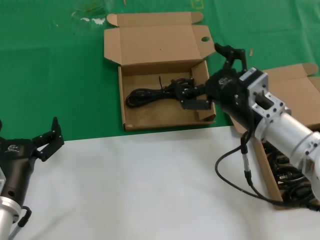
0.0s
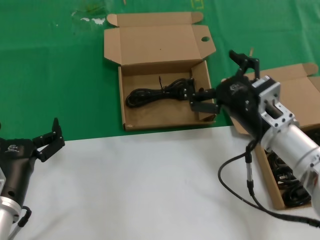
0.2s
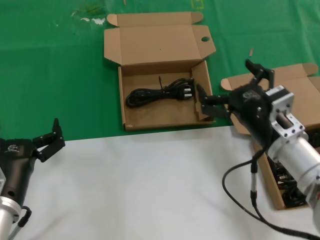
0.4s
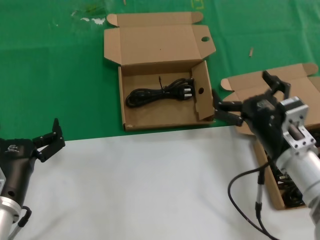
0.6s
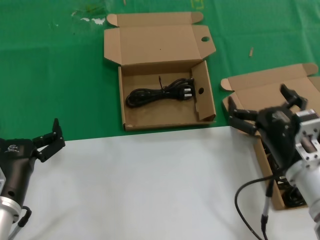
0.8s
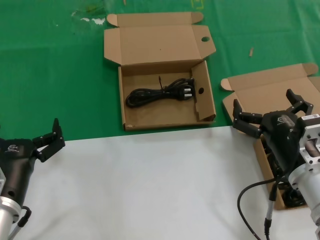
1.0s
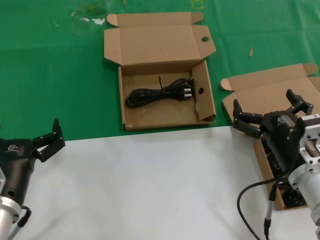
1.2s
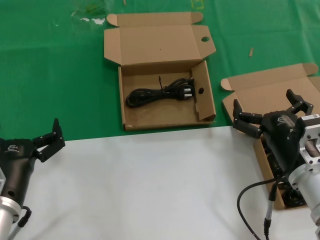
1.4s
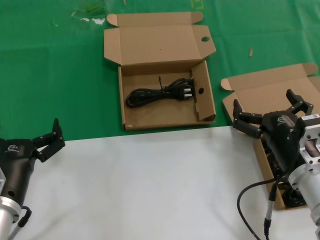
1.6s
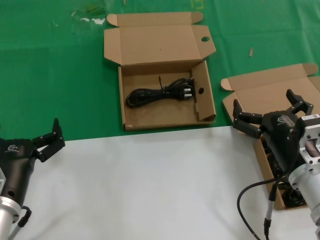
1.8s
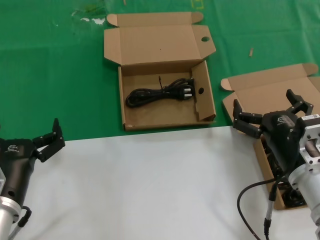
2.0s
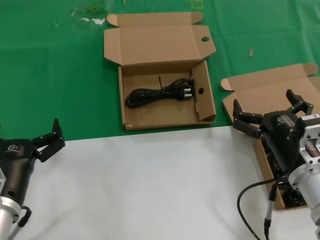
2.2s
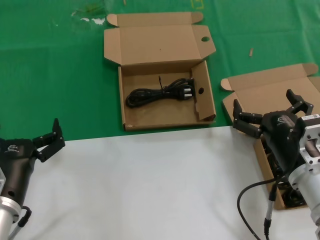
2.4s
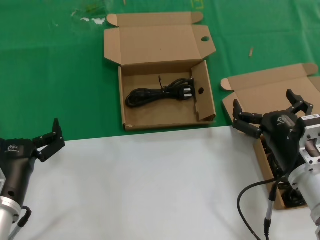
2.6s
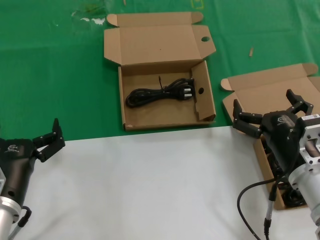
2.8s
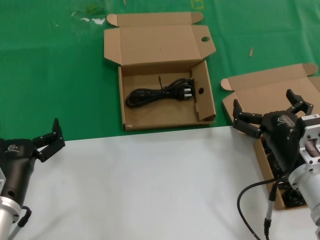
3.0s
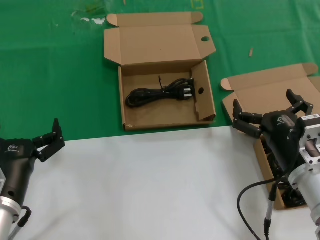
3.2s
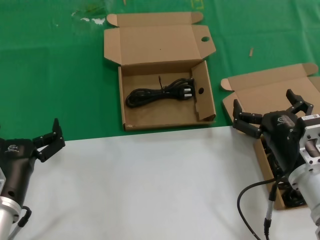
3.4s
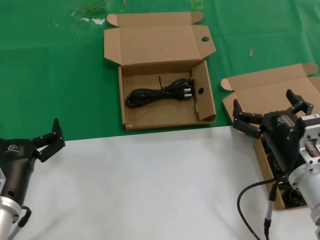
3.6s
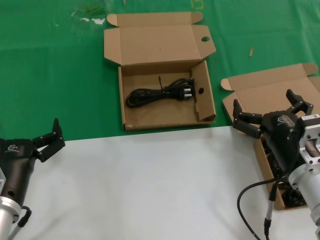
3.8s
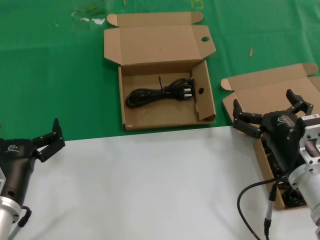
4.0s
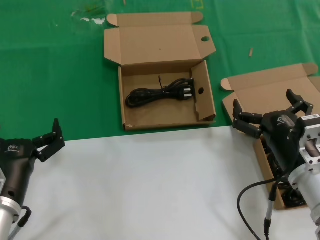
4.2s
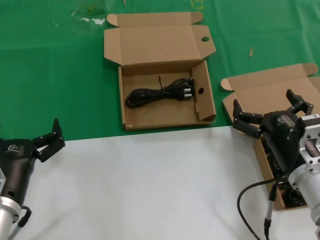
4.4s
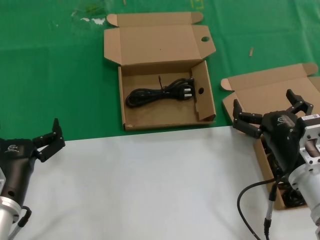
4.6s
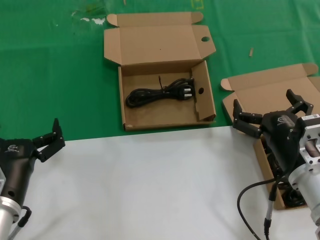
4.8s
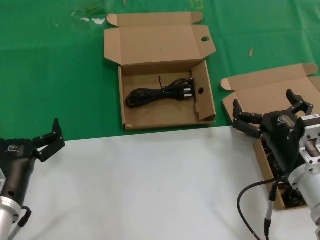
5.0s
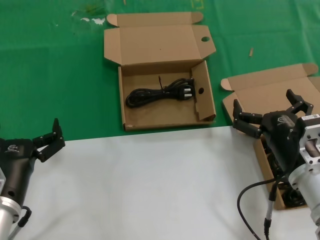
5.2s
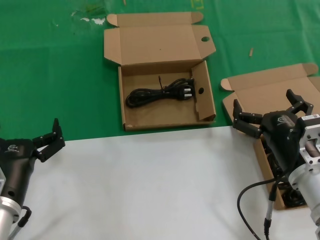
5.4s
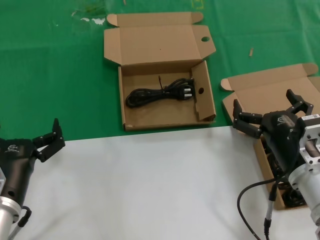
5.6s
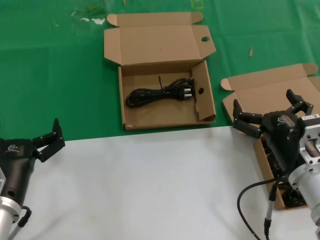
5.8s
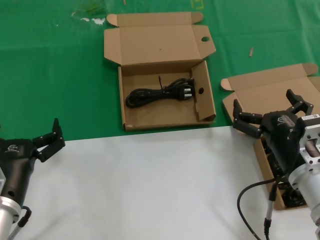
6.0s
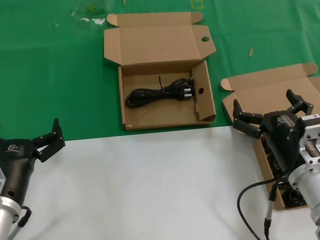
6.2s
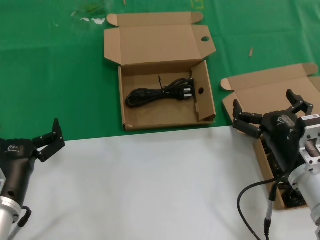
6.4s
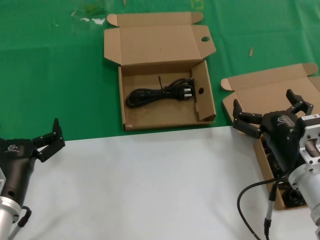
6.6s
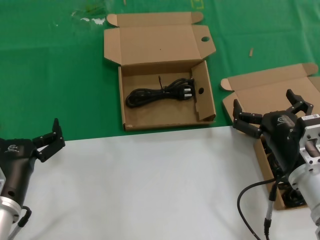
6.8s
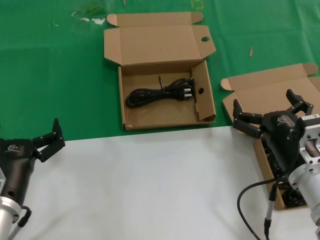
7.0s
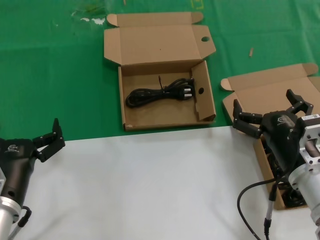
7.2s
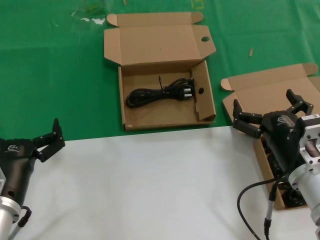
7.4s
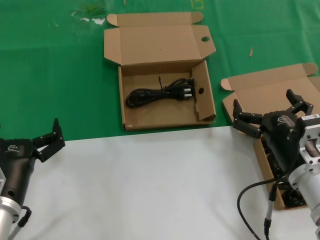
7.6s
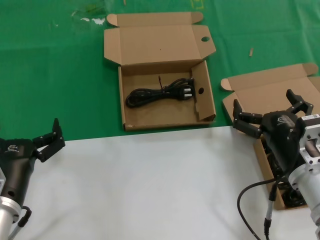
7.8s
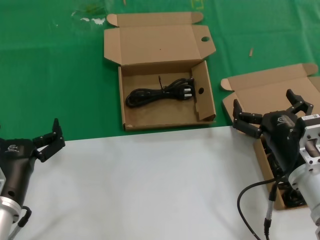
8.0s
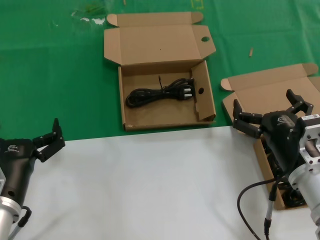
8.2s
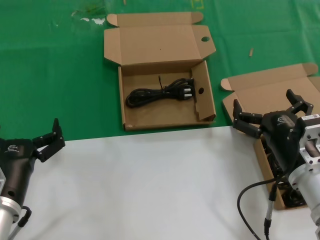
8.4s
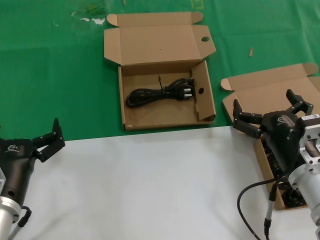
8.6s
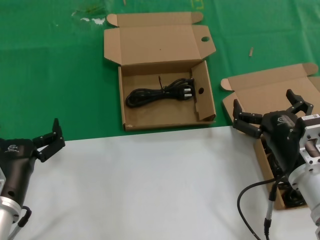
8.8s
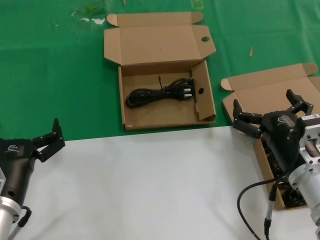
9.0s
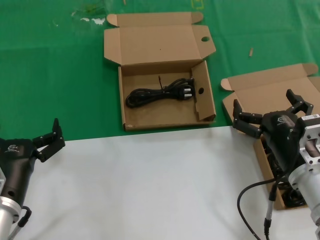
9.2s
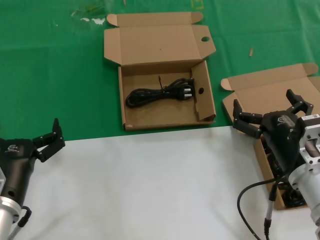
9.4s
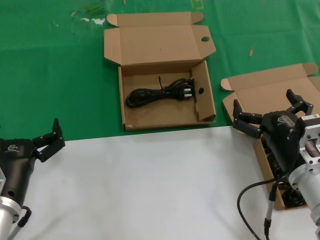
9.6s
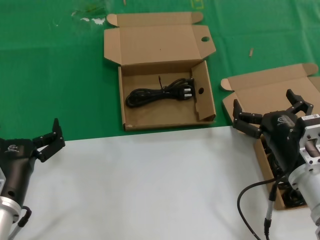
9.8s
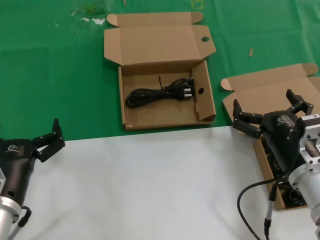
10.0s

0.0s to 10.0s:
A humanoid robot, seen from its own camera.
Task of the whole recording: take the parts from the box containing them and put them into an empty box.
0.0s to 1.4s: The right hand goes some 10 cm backward and downward.
1.4s to 10.0s: Neither hand changes place.

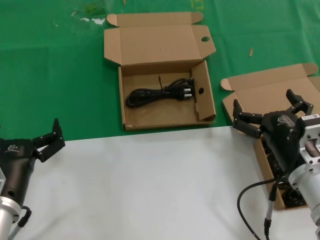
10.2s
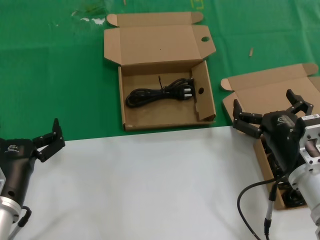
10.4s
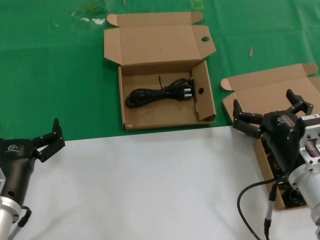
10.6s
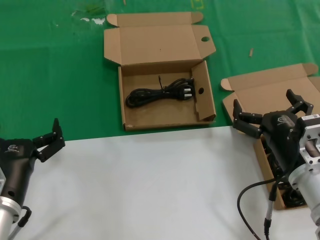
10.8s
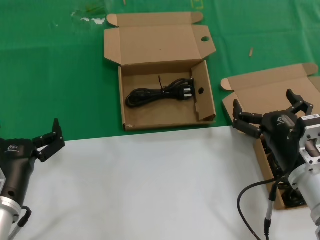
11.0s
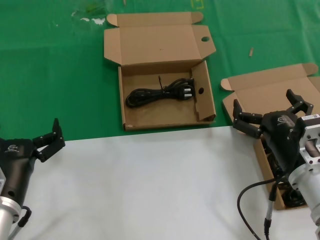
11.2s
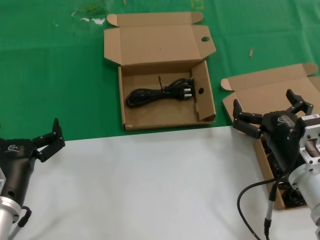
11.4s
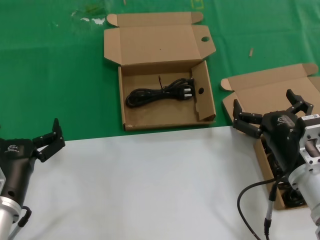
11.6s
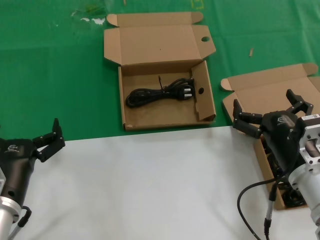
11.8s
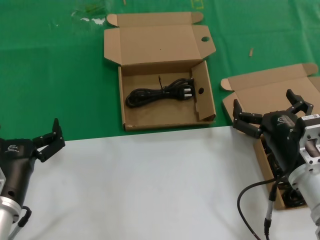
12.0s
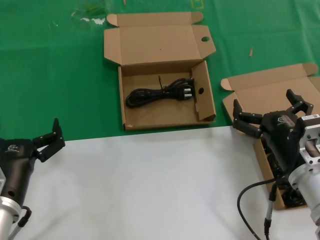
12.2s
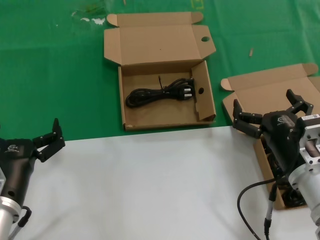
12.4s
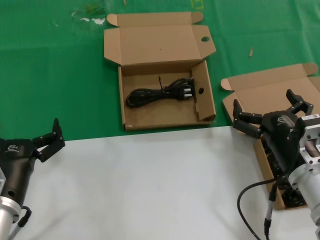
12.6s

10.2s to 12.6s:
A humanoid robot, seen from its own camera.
Task of the whole recording: take the parts from the box containing them and put them into an empty box.
10.2s to 12.6s: Both hands stay put.

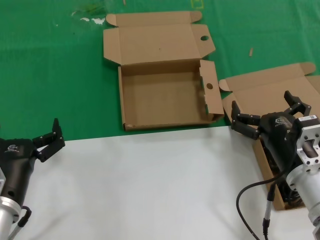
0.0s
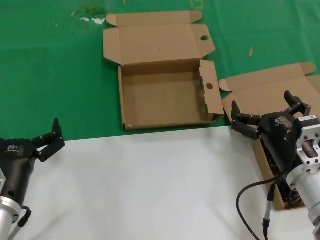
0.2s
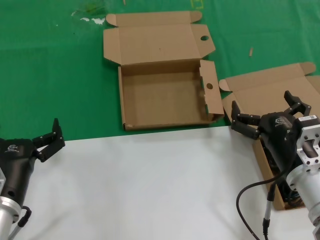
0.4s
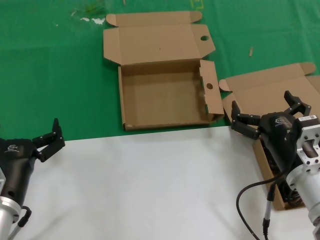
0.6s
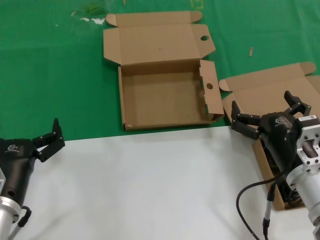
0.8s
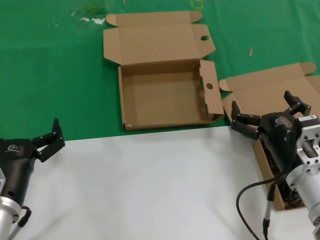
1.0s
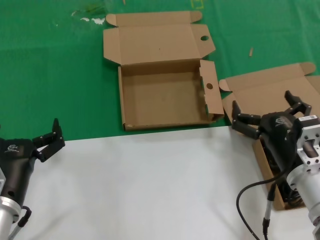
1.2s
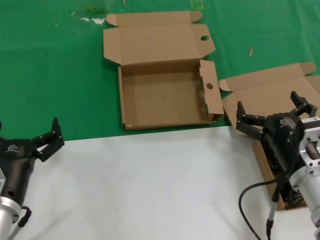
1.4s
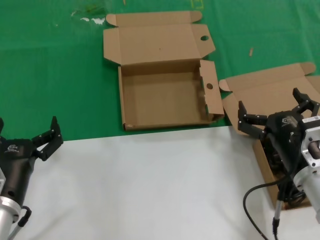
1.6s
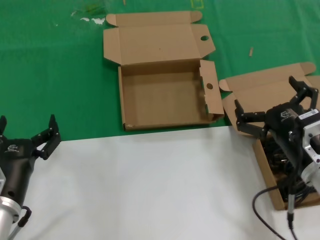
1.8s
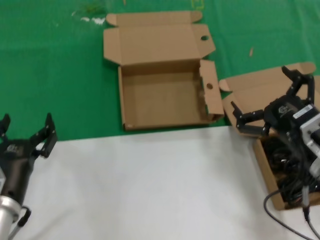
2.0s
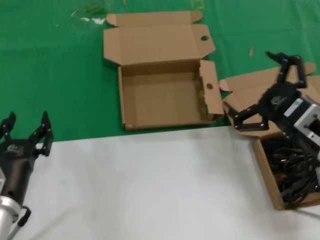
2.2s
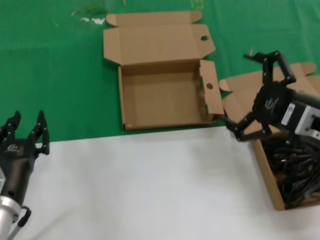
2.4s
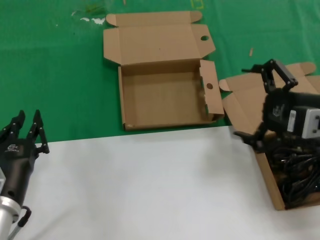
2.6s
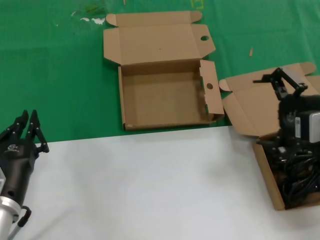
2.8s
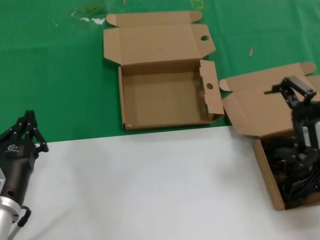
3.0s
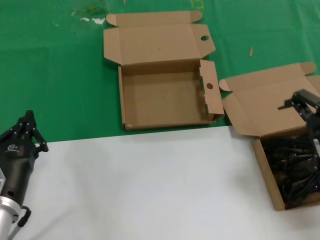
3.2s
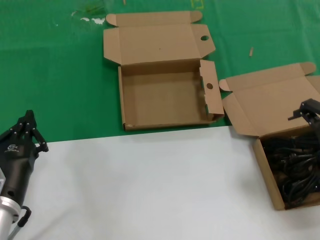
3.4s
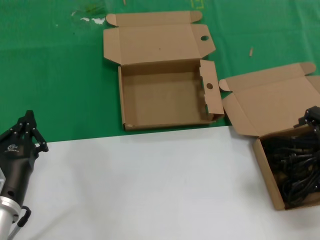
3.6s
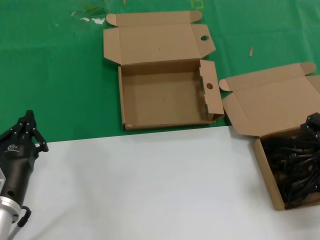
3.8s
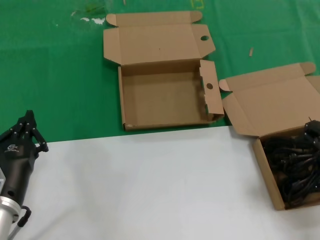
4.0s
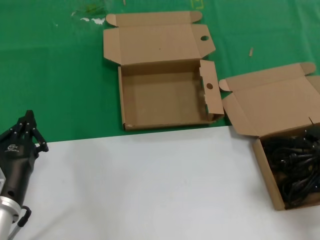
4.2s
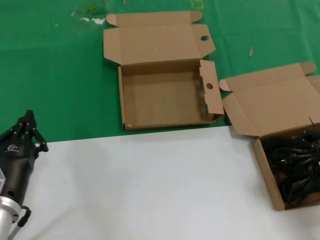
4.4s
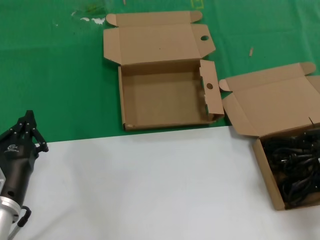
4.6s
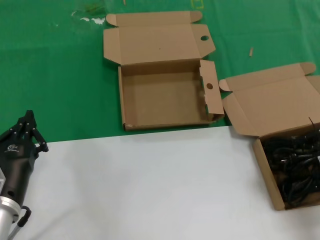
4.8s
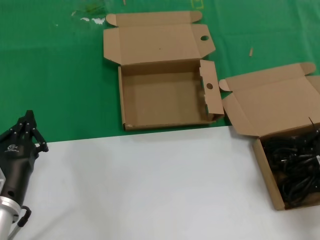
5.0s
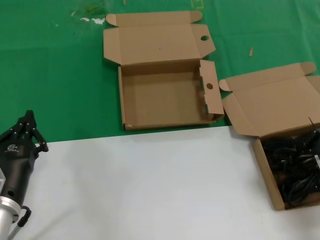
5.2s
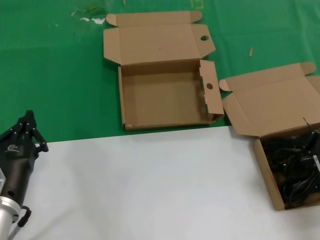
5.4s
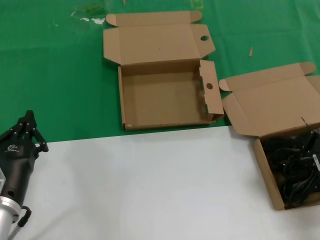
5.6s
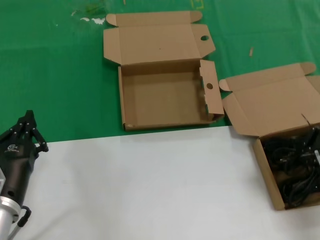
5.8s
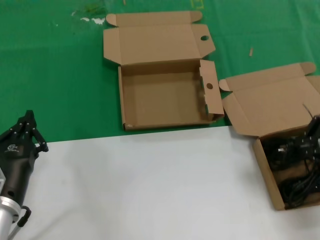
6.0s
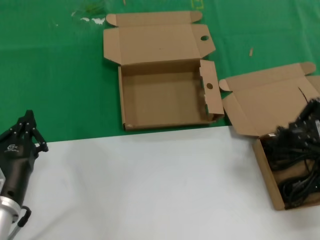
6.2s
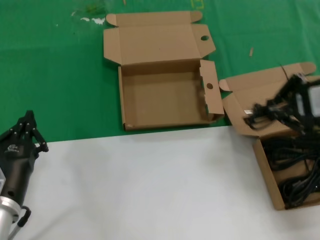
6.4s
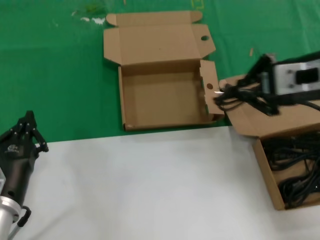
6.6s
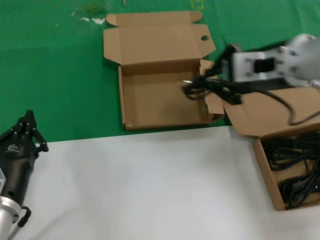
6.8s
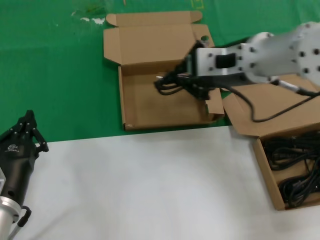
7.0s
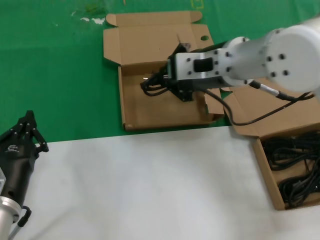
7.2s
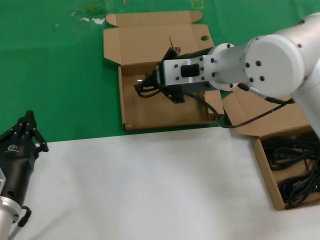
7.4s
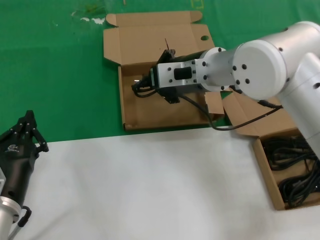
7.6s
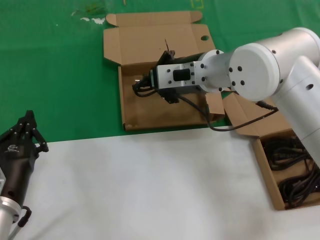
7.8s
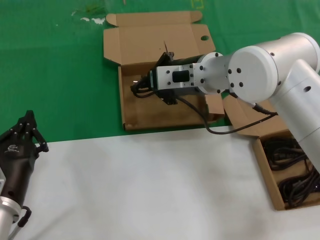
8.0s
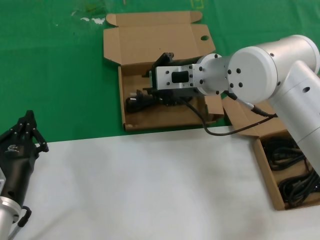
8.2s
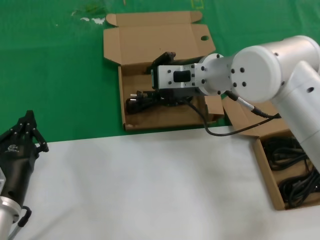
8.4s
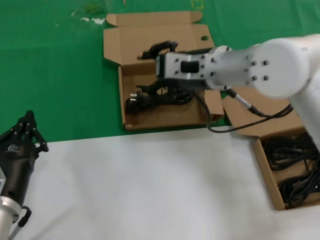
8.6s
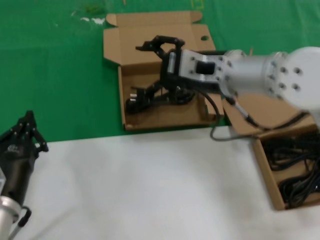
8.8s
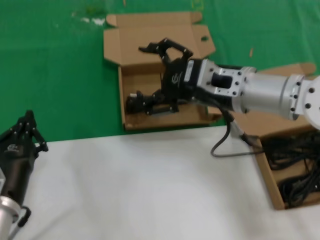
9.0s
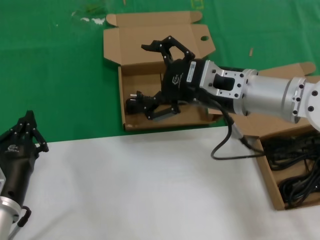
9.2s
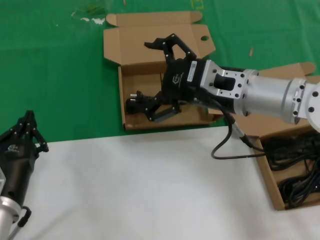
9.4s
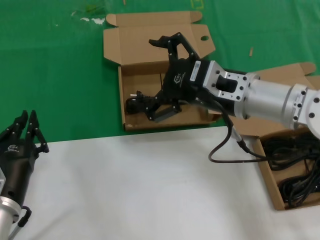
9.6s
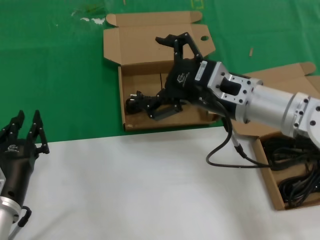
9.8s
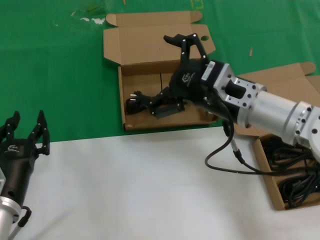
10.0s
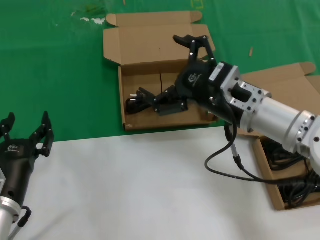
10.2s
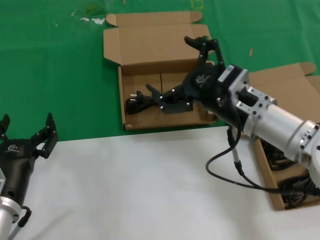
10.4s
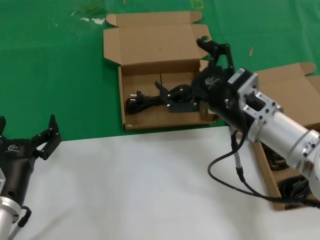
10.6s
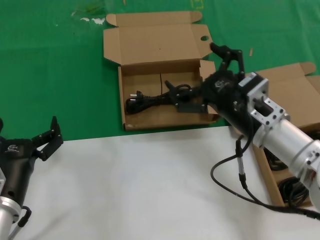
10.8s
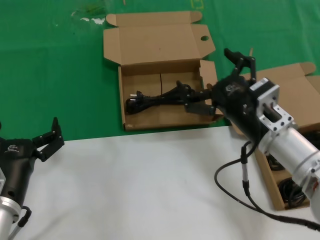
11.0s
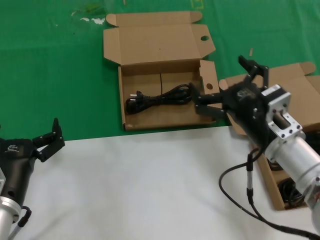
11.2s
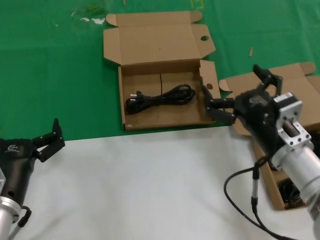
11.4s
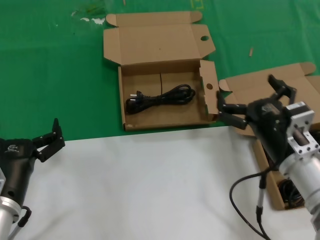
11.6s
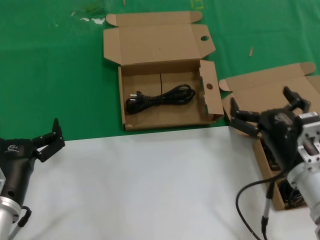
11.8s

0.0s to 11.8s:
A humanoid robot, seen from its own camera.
Task of the whole recording: take the parts from the box containing them and put them into an empty box.
Step, 0.0s to 5.4s: Grasp the data cable.
Step, 5.6s to 8.4s: Place the data cable in the another box.
0.0s to 1.4s: Both hands stay put.
1.4s to 3.0s: The right hand heads upward, covering approximately 20 cm.
3.0s to 4.4s: The right hand shifts by roughly 5 cm.
4.4s to 6.0s: The hands make only small movements.
6.0s to 7.4s: The right hand travels to the left and forward by roughly 25 cm.
8.8s to 10.4s: The right hand shifts about 10 cm downward and backward.
10.4s to 11.8s: The right hand travels downward, backward and to the right by approximately 15 cm.
